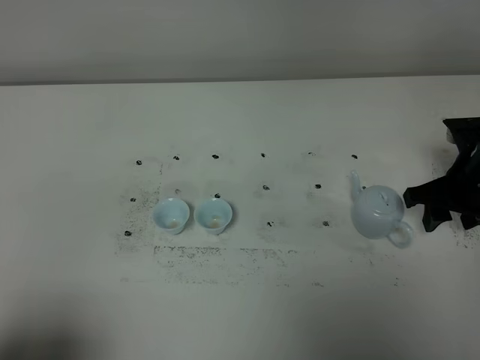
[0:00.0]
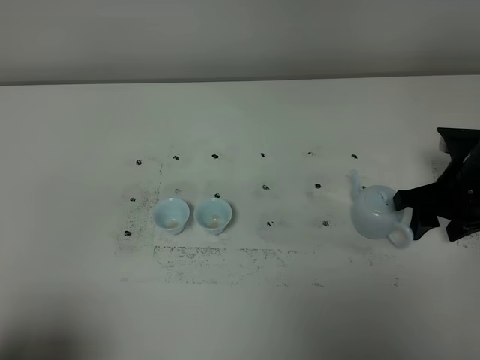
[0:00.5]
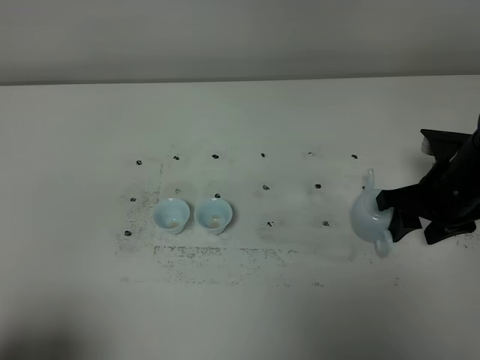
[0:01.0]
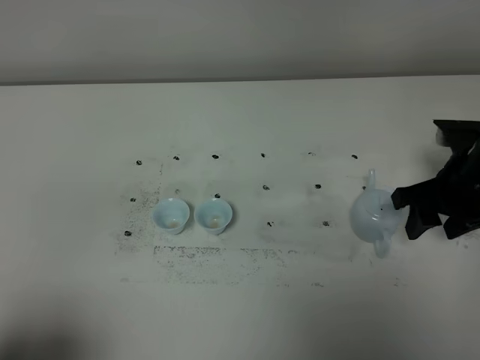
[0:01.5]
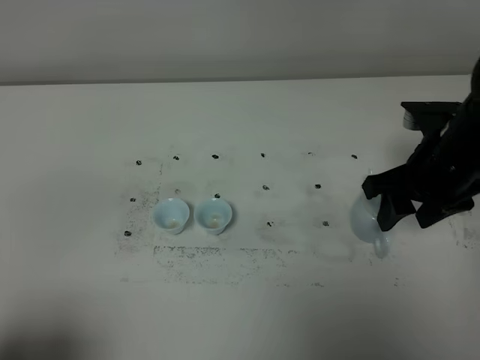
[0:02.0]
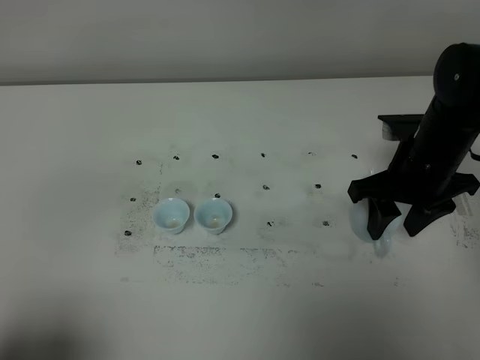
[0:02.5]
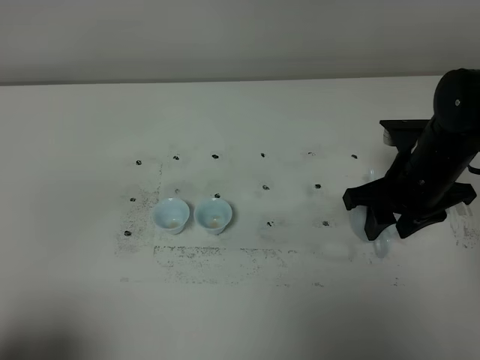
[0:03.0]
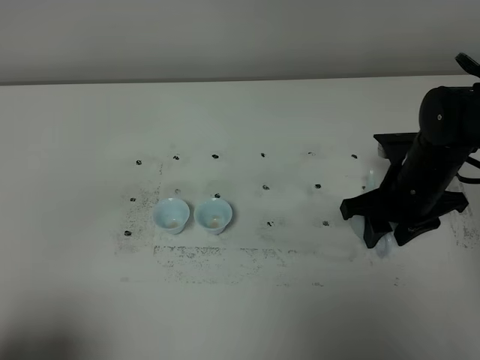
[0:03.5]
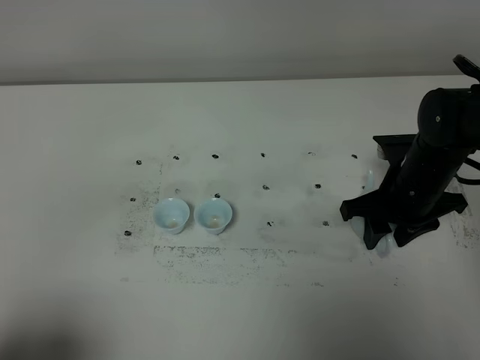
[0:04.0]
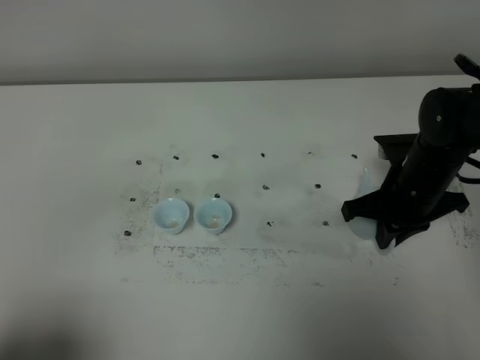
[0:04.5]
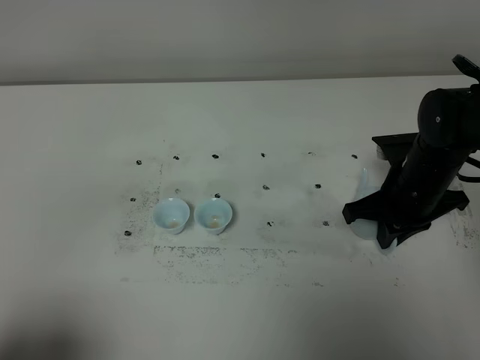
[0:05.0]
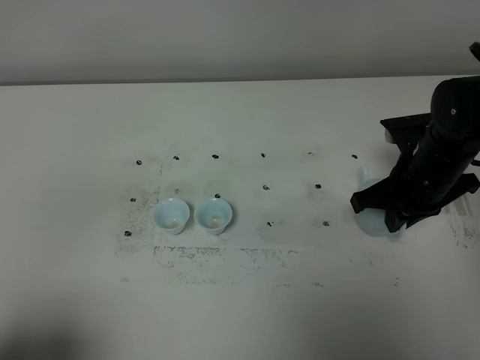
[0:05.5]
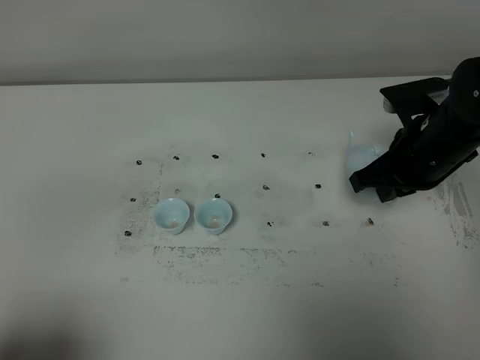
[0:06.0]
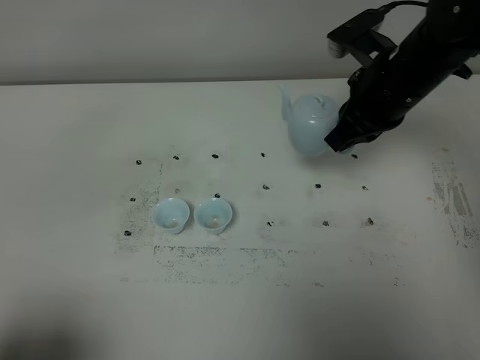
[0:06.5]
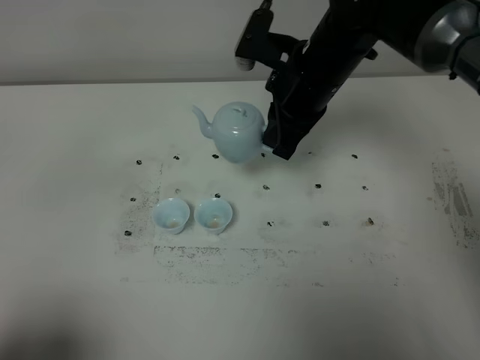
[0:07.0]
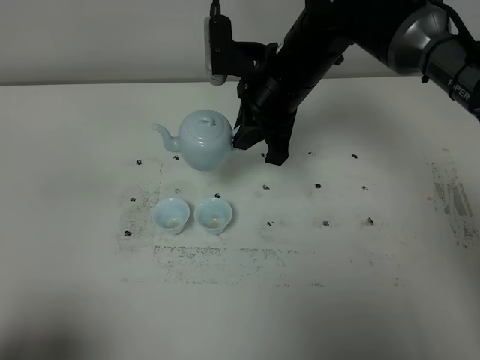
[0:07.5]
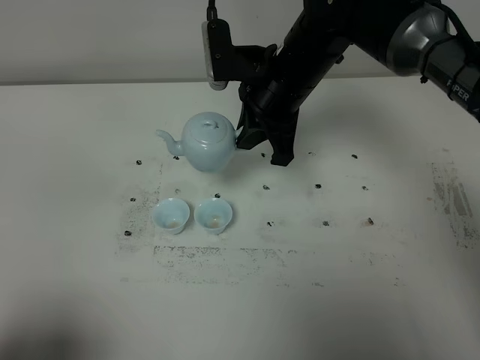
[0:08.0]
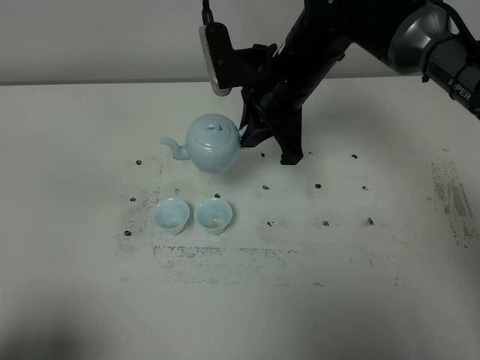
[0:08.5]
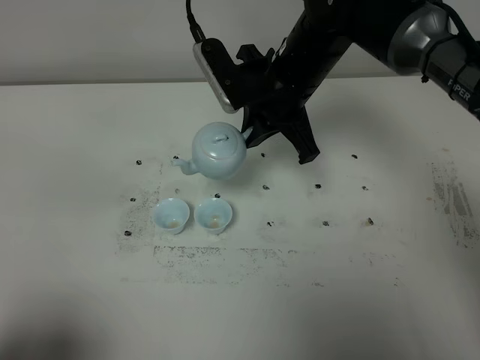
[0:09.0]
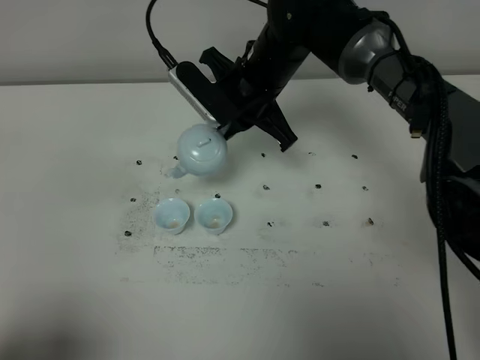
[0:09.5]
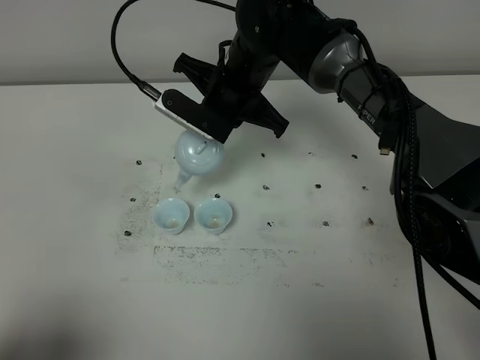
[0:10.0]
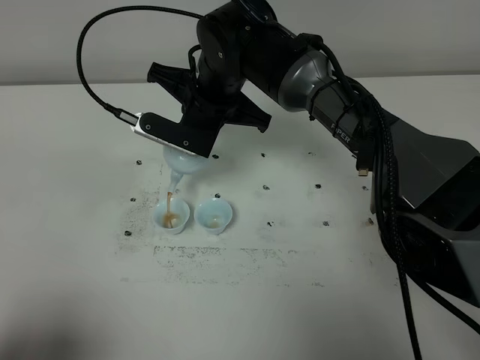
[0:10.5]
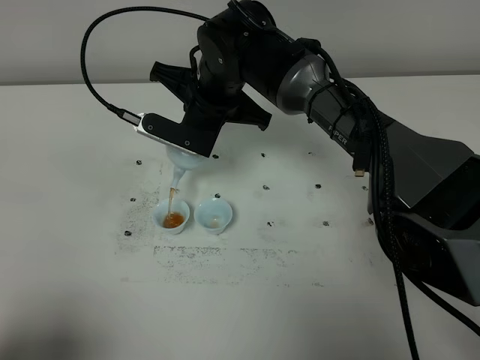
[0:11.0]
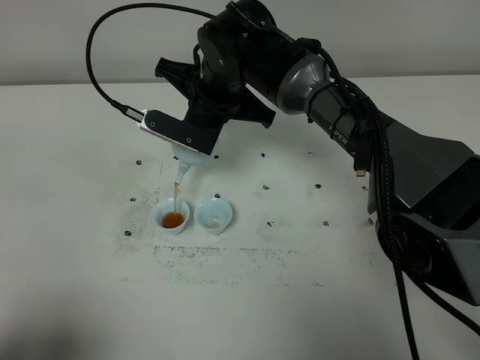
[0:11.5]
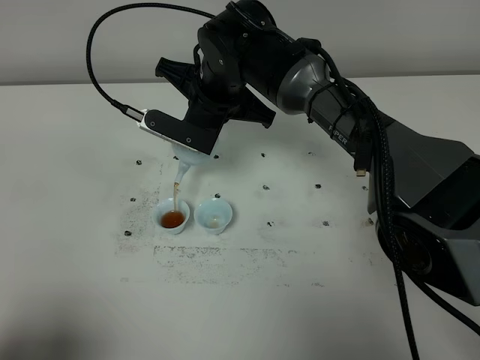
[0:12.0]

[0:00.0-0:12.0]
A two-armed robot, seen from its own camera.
Task of the whole recording: grasp the blue porcelain teapot and pour the tea into the two blue porcelain teacups one by one, put the blue porcelain teapot back in its original place.
Step, 0:00.0 to 0:06.0: Pick up the teapot with the right gripper.
0:00.0 to 0:02.0: The right gripper moves to the left and upward, roughly 10 cm.
0:02.0 to 0:04.0: The right gripper is displaced downward by roughly 5 cm.
0:04.0 to 0:06.0: The right gripper is displaced upward by approximately 5 cm, and closes its fingers.
0:06.0 to 0:08.0: The right gripper travels to the left and forward by about 15 cm.
0:08.0 to 0:10.0: The right gripper goes about 5 cm to the left.

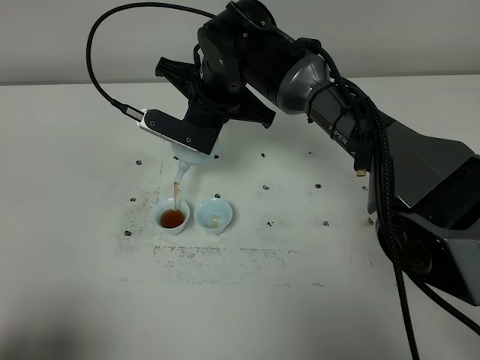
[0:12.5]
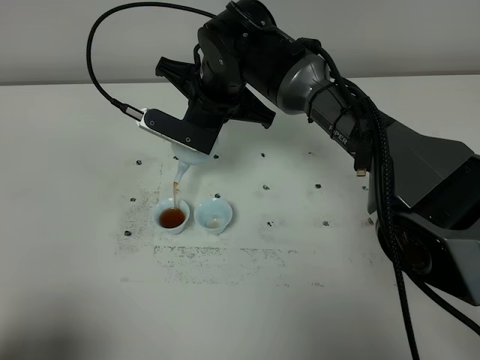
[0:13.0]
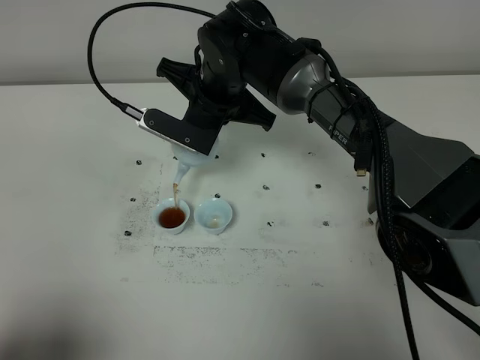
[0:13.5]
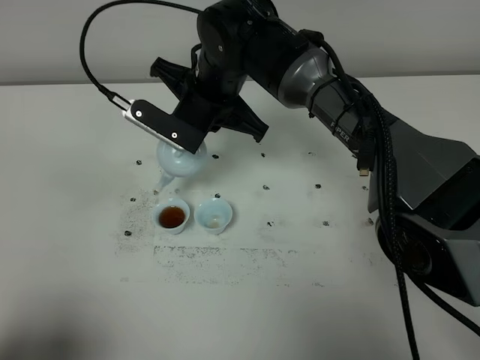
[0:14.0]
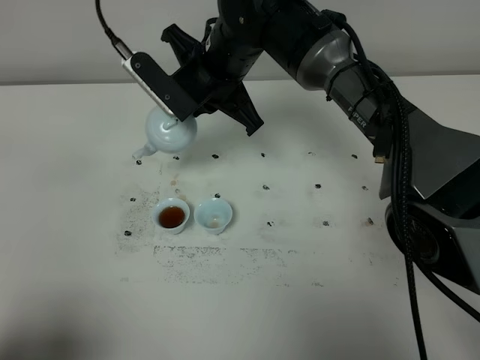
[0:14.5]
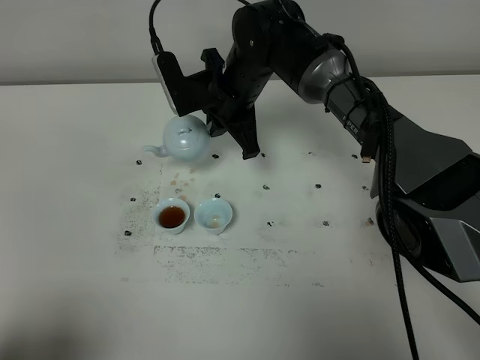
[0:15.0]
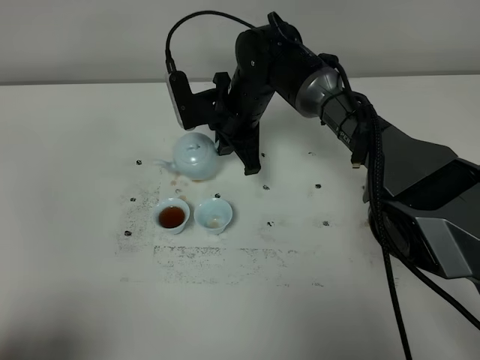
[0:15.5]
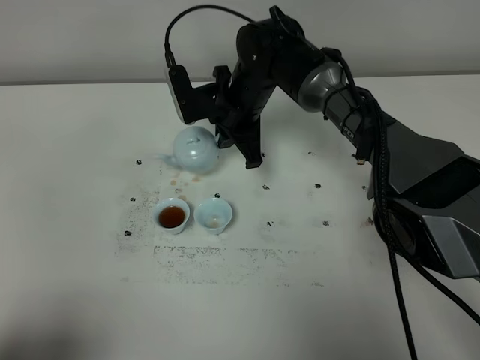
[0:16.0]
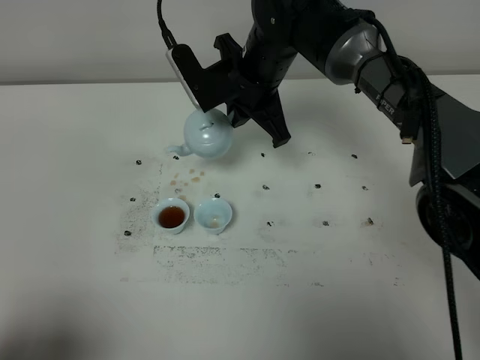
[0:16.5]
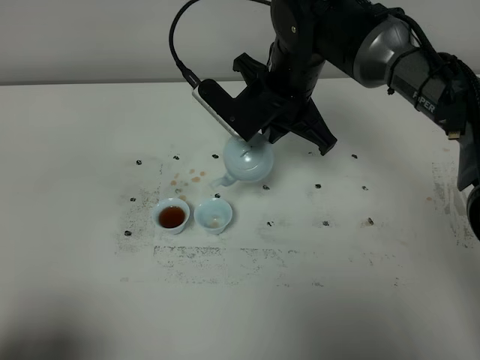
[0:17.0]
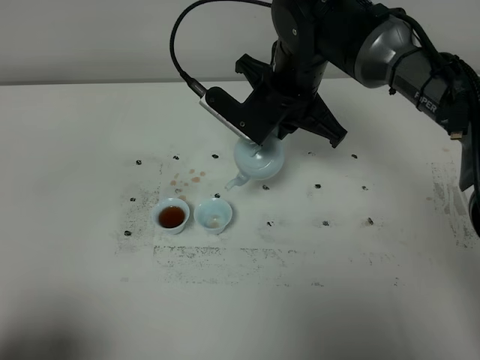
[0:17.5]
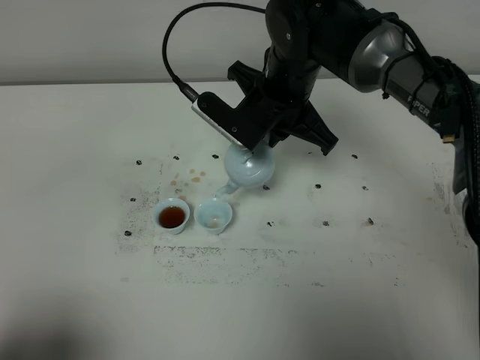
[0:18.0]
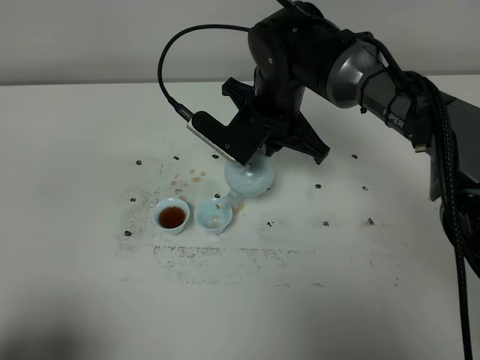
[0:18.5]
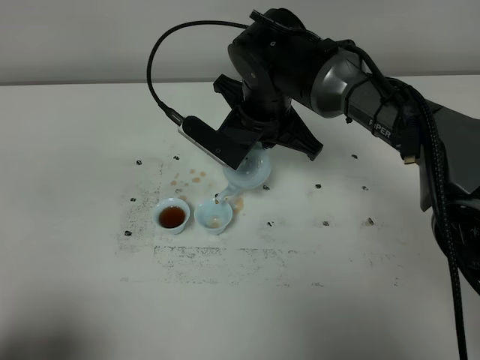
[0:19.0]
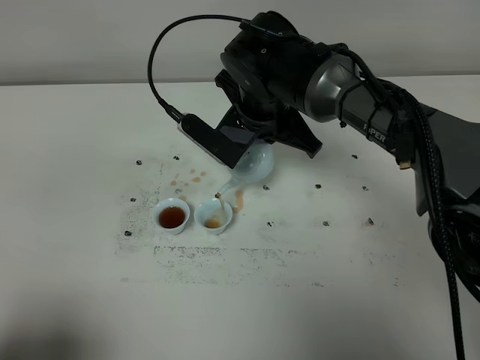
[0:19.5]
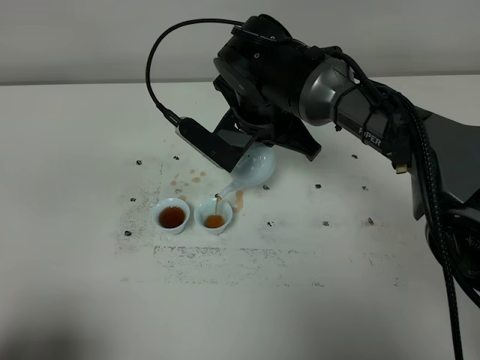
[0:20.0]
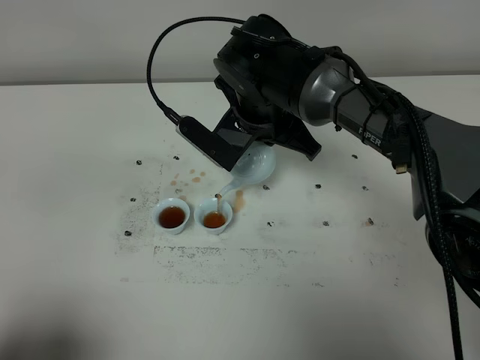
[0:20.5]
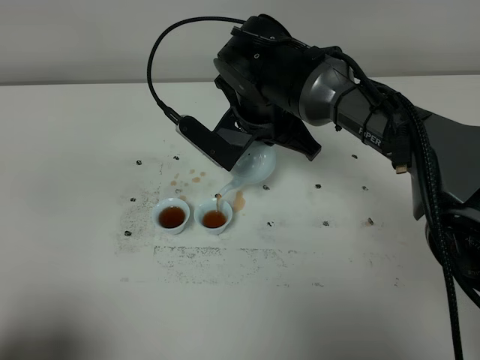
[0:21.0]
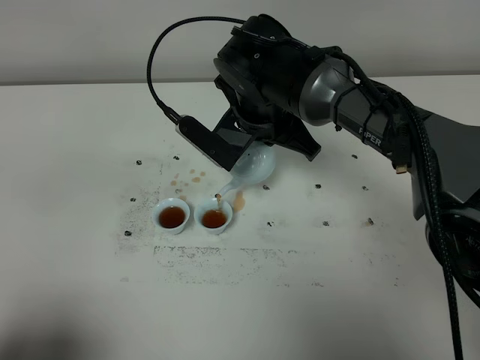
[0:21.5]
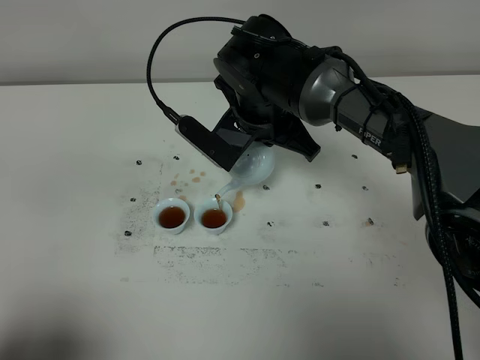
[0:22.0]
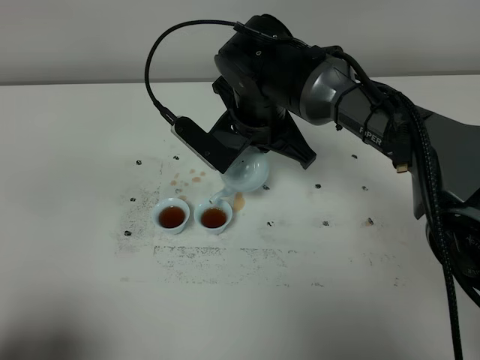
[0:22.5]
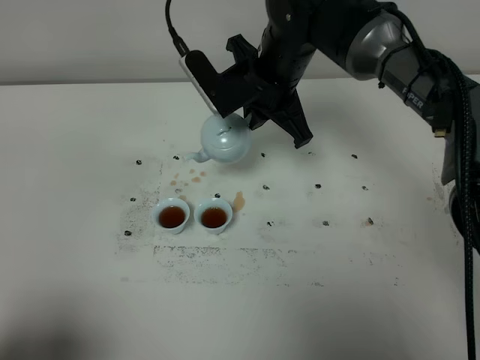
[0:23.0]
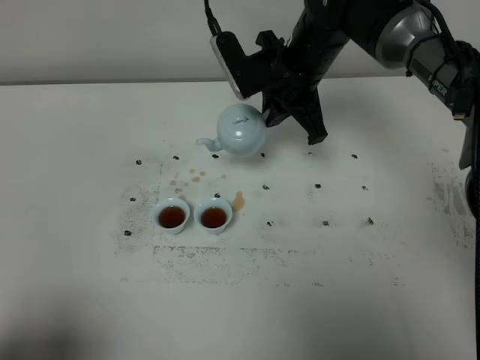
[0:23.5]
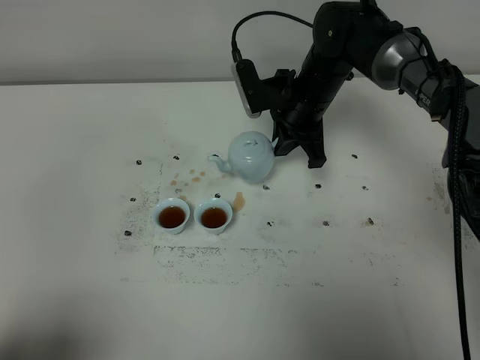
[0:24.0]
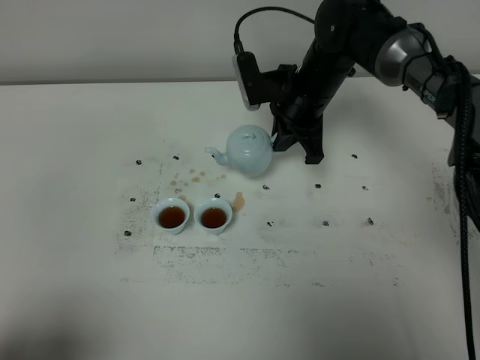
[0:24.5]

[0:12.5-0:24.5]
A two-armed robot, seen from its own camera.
Task of the whole recording: grasp the blue porcelain teapot and pour the tea into the two blue porcelain teacups one by one, put the blue porcelain teapot back in its original place.
Step, 0:12.5 to 0:22.5: Pour tea into the teacup with the right gripper.
0:14.5 to 0:16.5: The right gripper moves roughly 10 cm downward and comes back.
0:18.5 to 0:22.5: The grippers make only small movements.
0:22.5 to 0:24.5: The right gripper shifts approximately 10 cm to the right and forward.

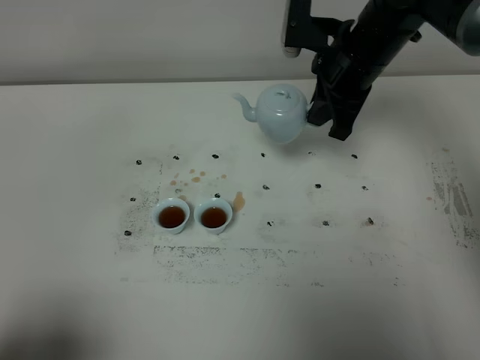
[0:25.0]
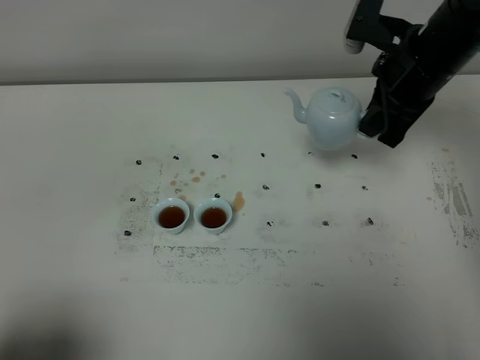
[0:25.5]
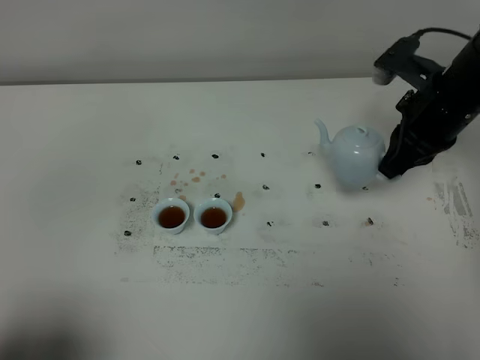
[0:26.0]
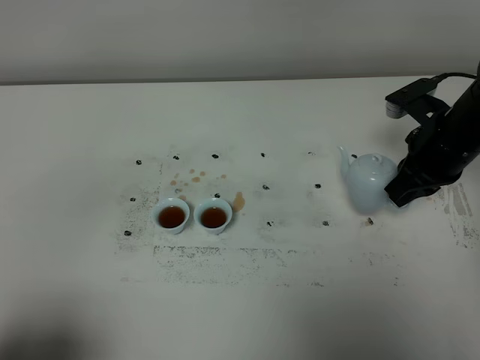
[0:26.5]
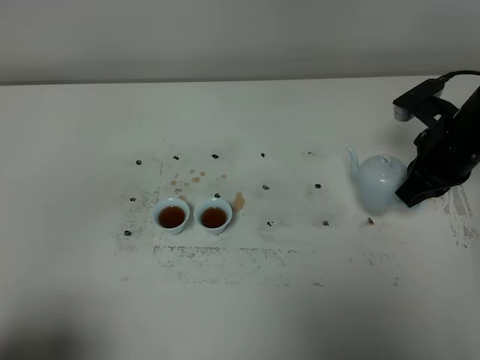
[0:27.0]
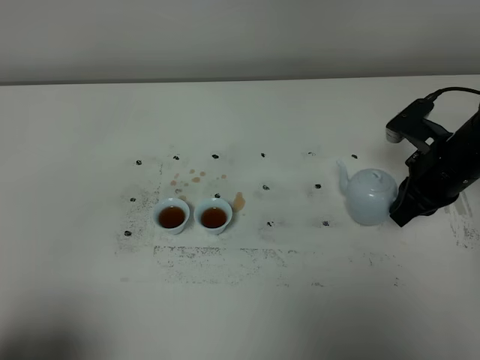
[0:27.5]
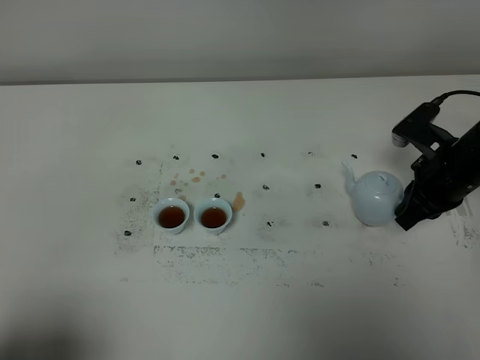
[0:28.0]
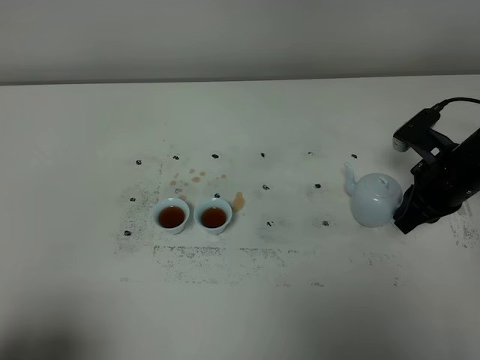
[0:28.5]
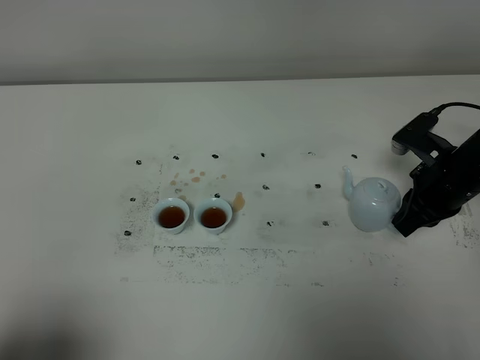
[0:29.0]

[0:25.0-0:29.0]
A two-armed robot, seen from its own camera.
Task of the whole recording: grasp the blue porcelain teapot and pour the tea into the two blue porcelain teacups one by one, put the blue porcelain teapot back in its original place.
0:25.0 to 0:27.0: The right gripper heads to the right, downward and backward, covering roughly 15 cm.
0:27.0 to 0:29.0: The right gripper moves roughly 5 cm.
